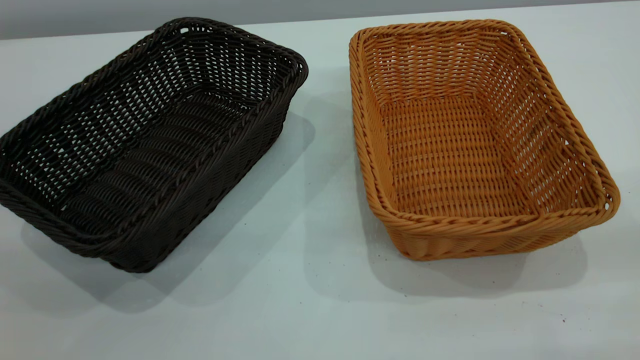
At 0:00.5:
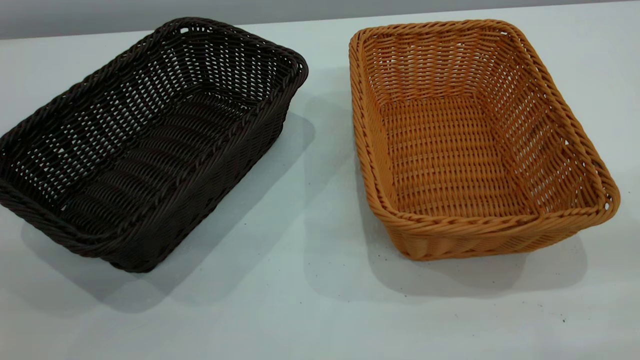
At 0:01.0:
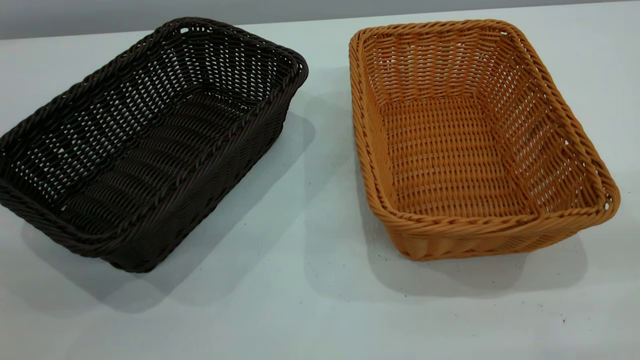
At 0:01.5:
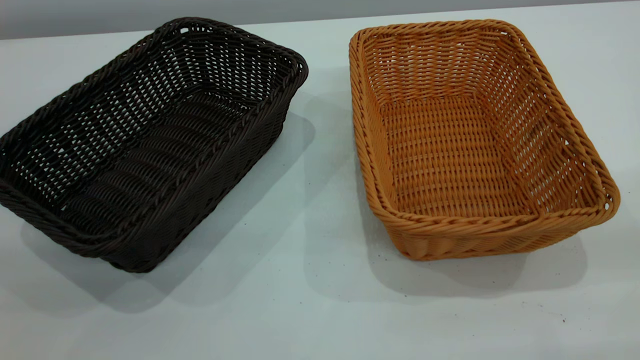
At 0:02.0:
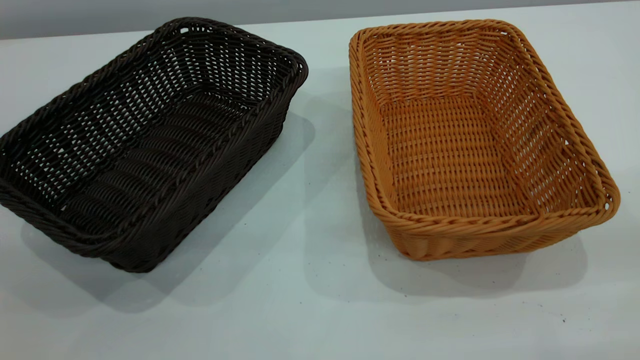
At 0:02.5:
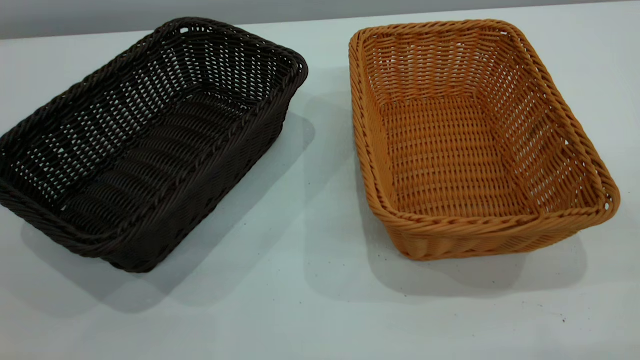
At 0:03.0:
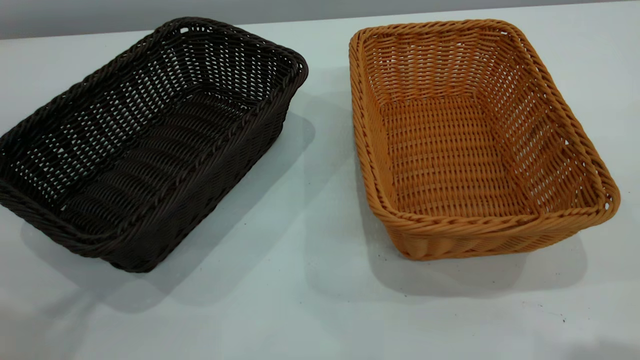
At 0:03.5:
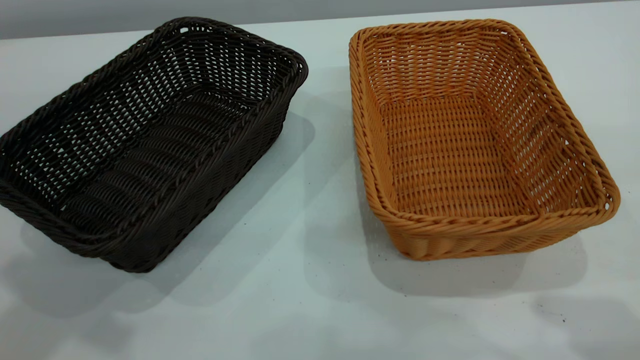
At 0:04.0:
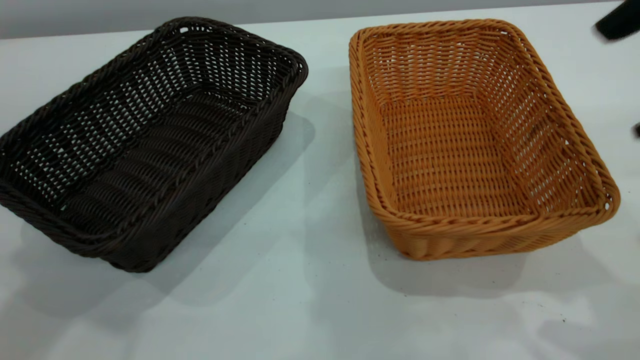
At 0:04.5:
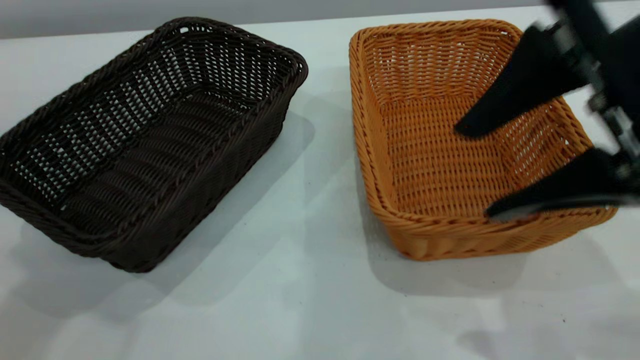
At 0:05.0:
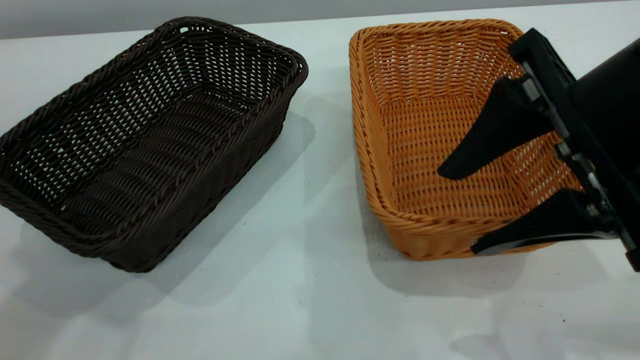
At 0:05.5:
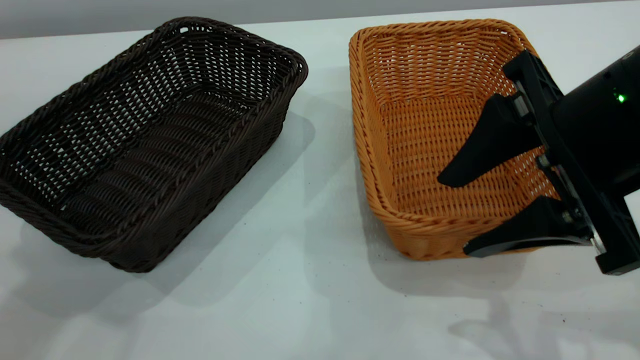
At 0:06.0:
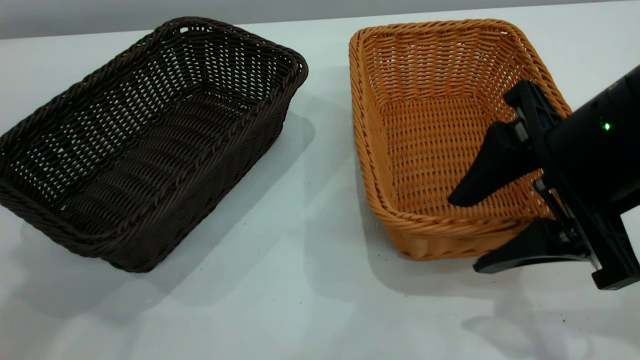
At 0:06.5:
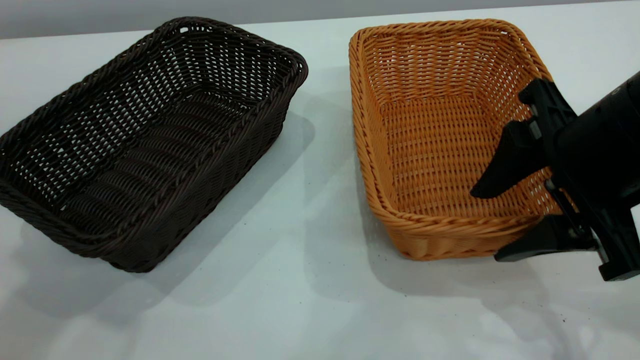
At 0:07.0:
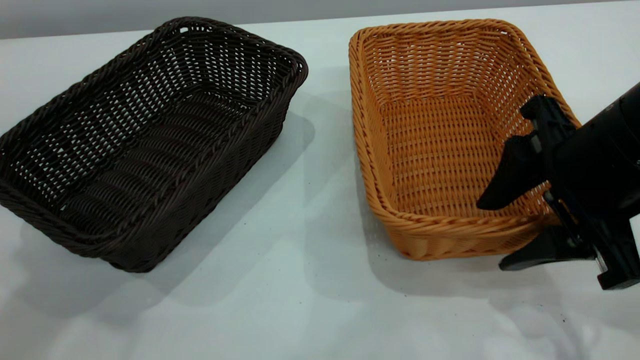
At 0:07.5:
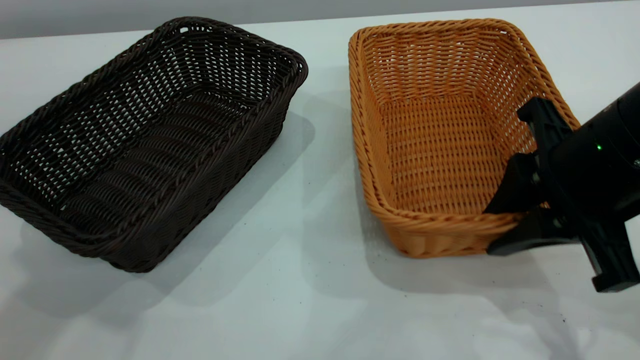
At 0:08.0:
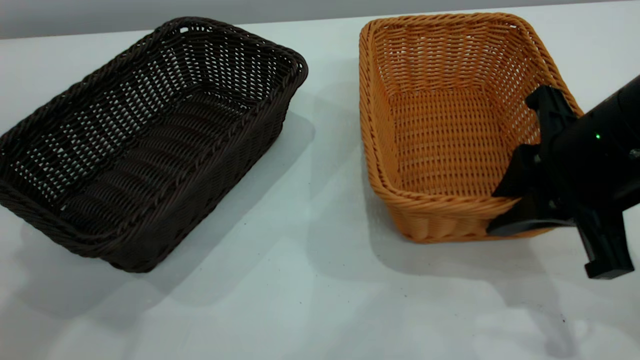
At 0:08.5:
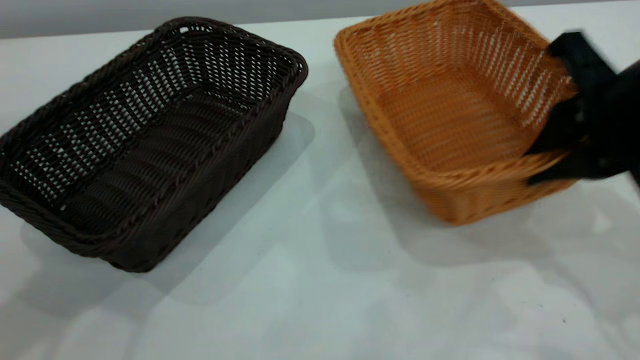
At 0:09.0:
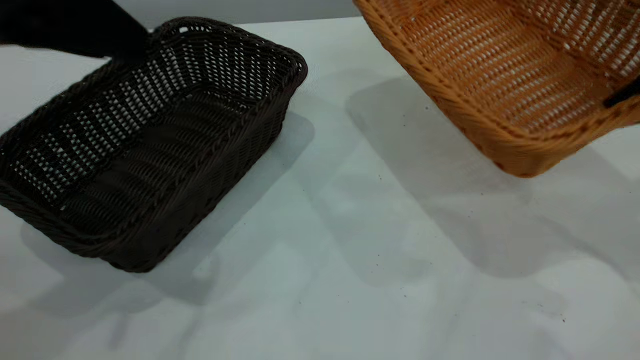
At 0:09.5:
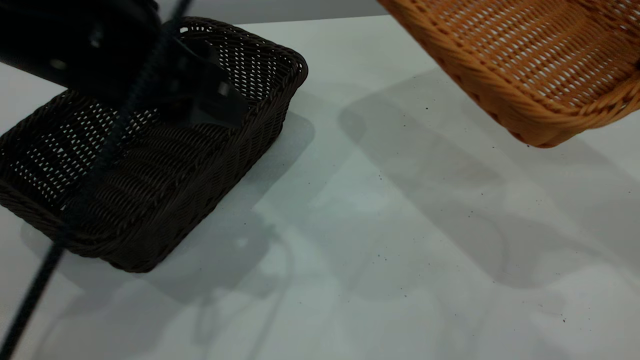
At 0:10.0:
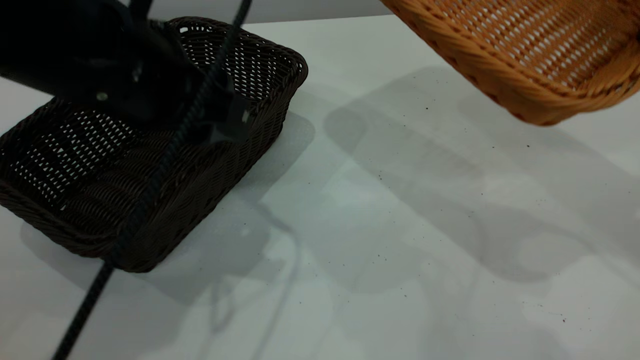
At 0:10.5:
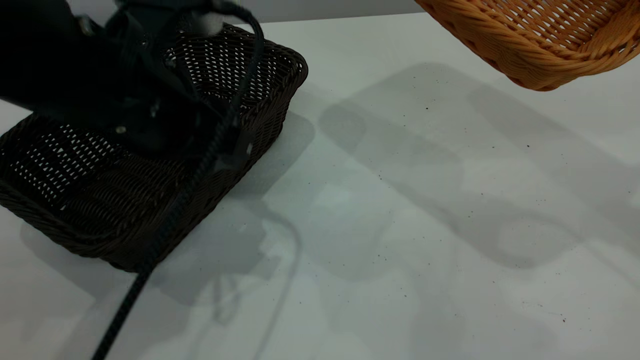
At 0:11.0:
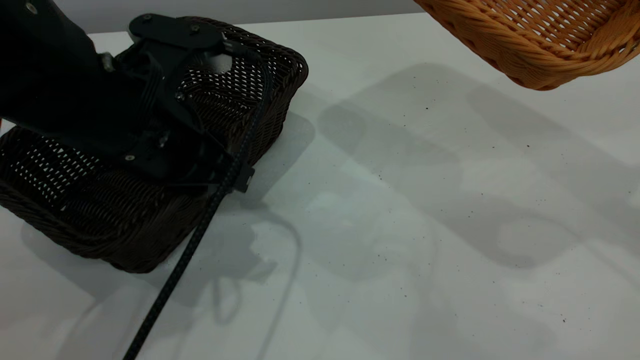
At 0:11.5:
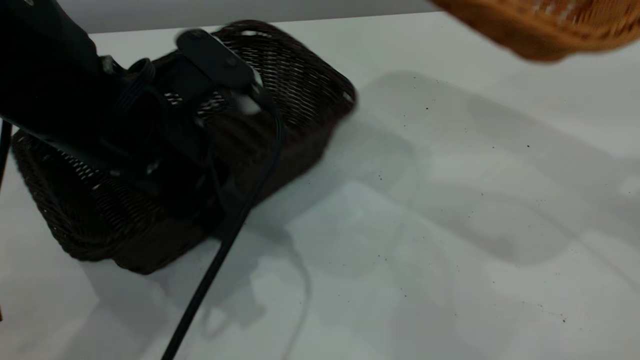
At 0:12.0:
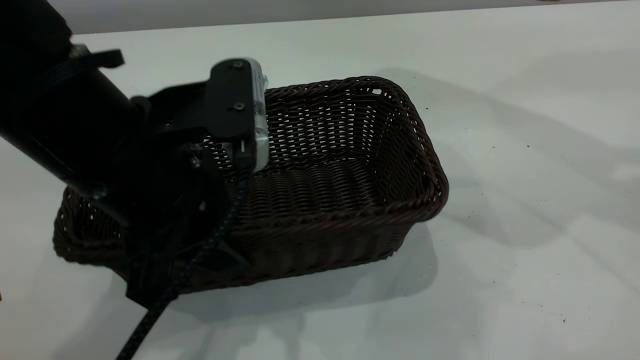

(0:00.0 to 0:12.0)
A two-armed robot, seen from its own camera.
Task of the whole recording: the left gripper grasp the black basket and place it in the center of the table, the right gripper grasp the brown basket and place it inside the black one.
Step, 0:00.0 - 0:08.5: Pick up the light basket with the right gripper.
0:00.0 - 0:02.0: Both grippers stay about where they are.
0:02.0 - 0:04.0: The right gripper shifts approximately 20 cm forward, and opens up.
0:04.0 - 0:06.0: The right gripper is displaced downward and to the left by some 15 cm.
0:06.0 - 0:08.0: The right gripper closes its fingers.
0:08.0 - 0:10.0: The right gripper moves upward and to the right, approximately 15 cm; the left gripper shifts approximately 20 cm downward and to the right.
0:10.0 - 0:12.0: The left gripper ends up some 5 cm from where it was, and closes up, while the right gripper goes about 5 cm upward.

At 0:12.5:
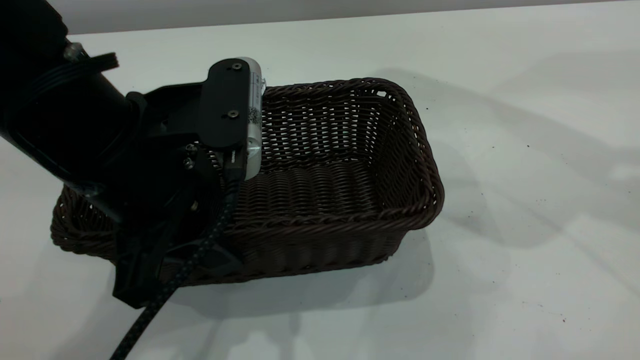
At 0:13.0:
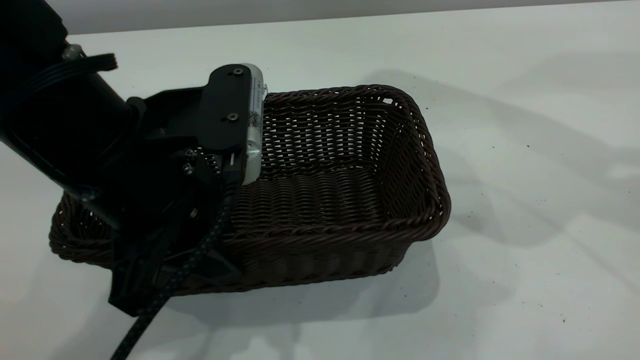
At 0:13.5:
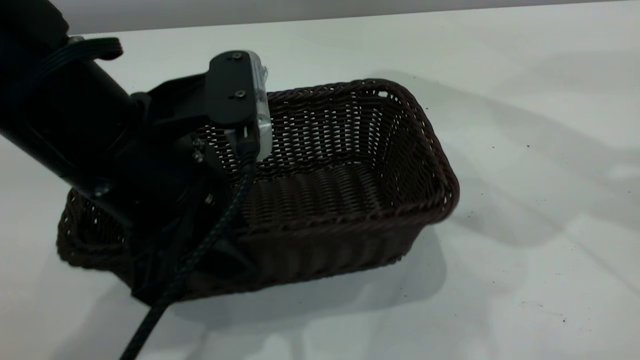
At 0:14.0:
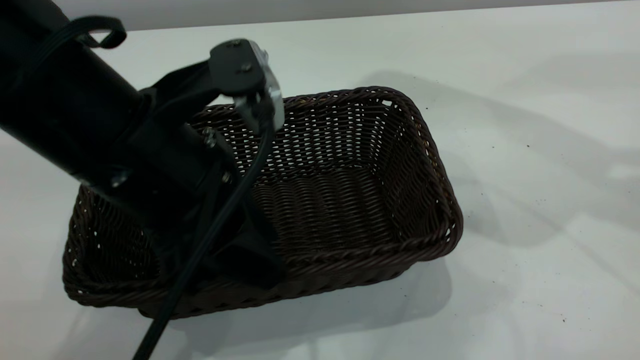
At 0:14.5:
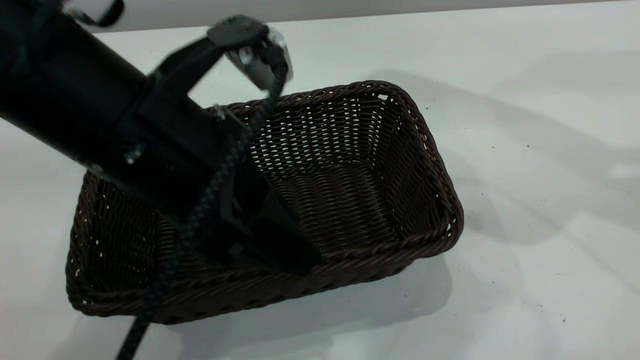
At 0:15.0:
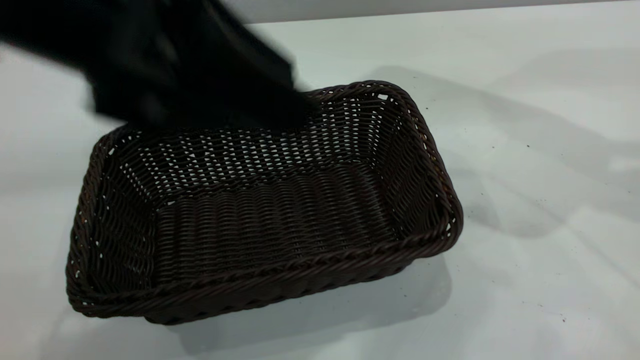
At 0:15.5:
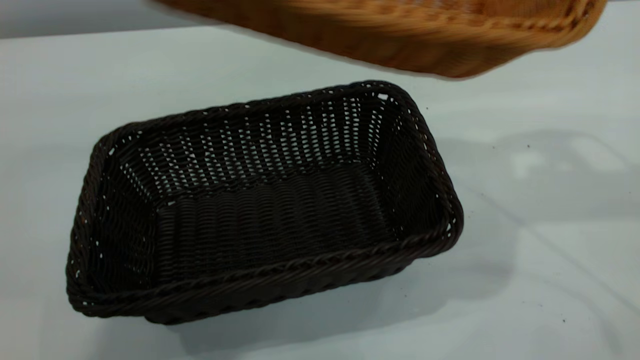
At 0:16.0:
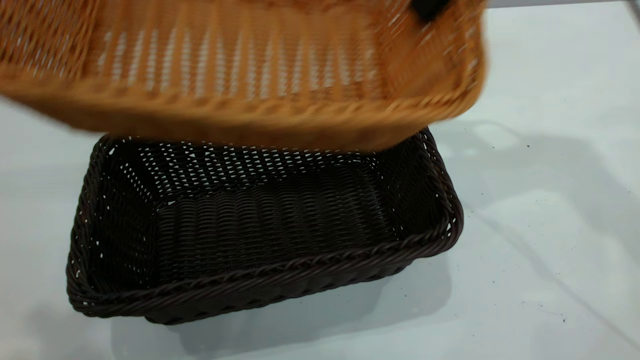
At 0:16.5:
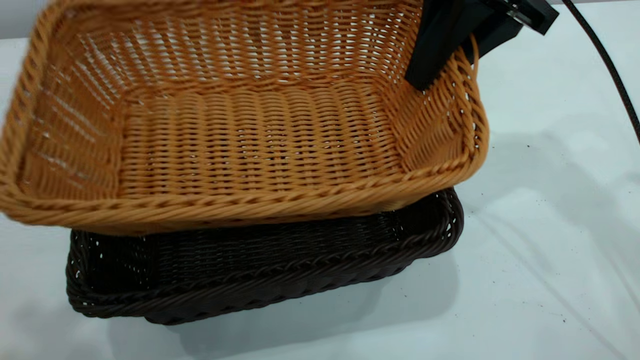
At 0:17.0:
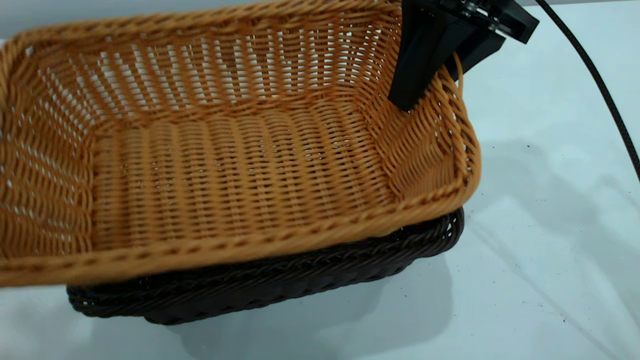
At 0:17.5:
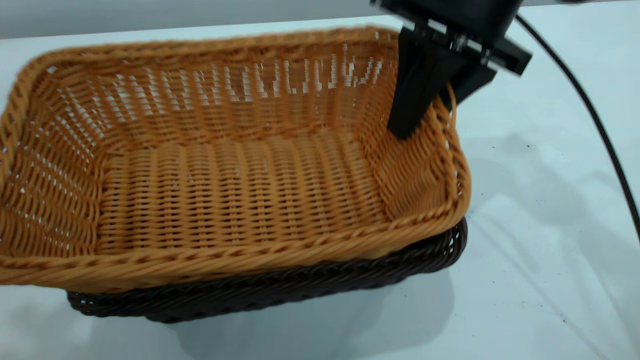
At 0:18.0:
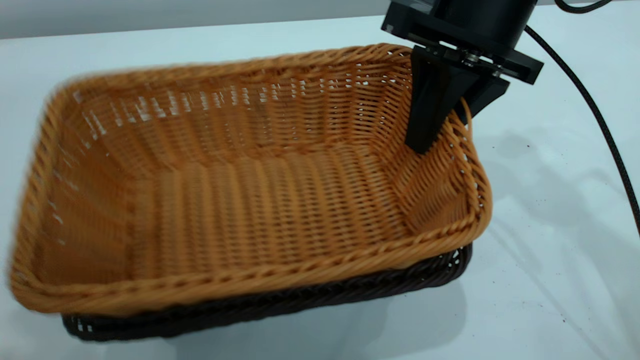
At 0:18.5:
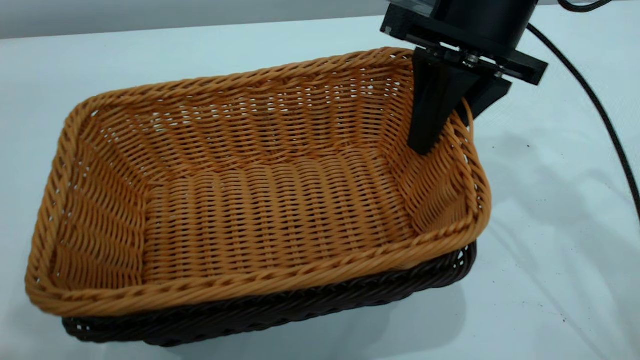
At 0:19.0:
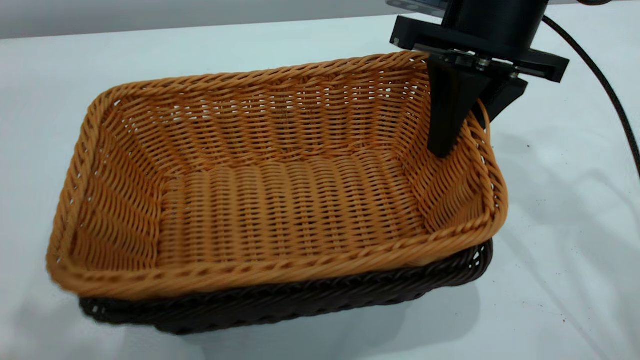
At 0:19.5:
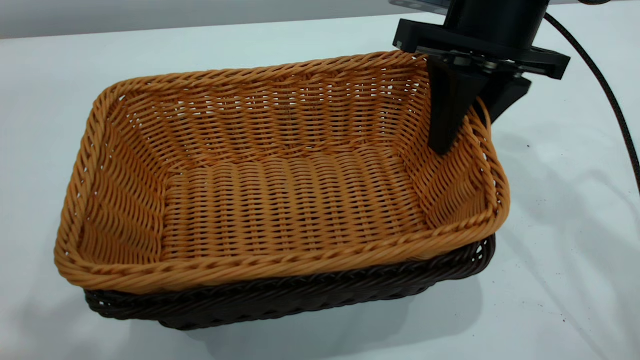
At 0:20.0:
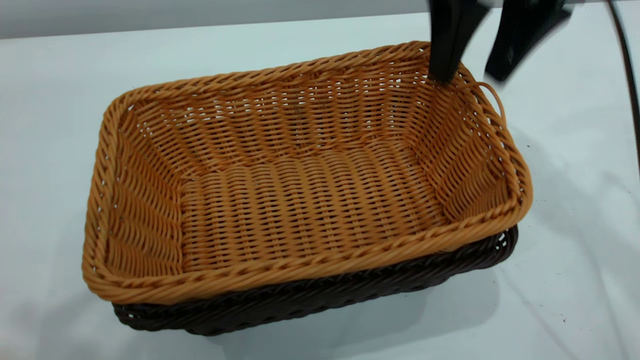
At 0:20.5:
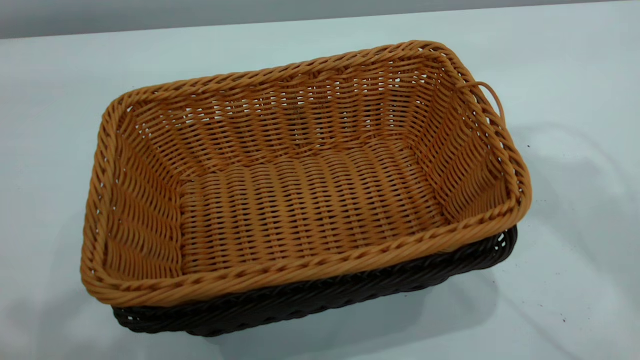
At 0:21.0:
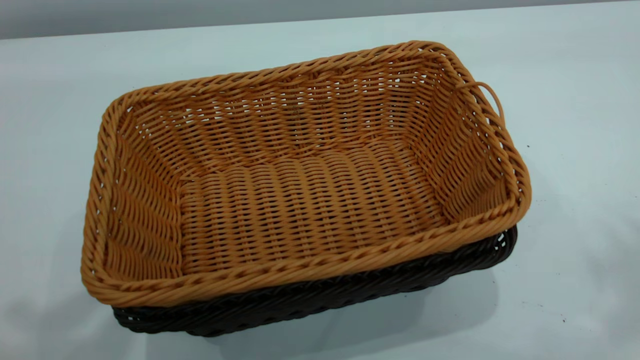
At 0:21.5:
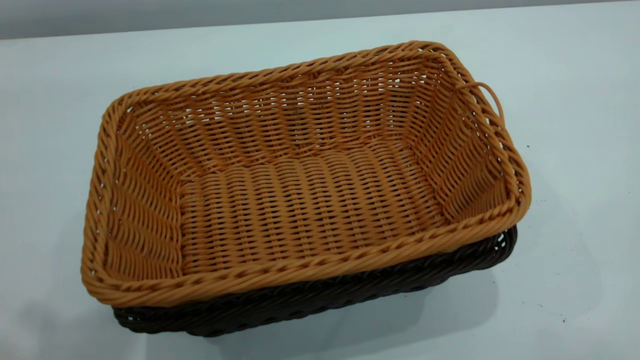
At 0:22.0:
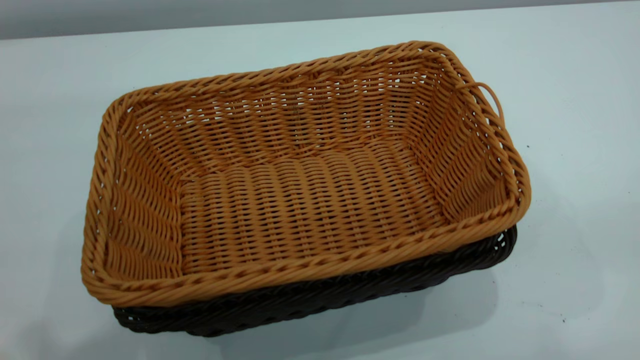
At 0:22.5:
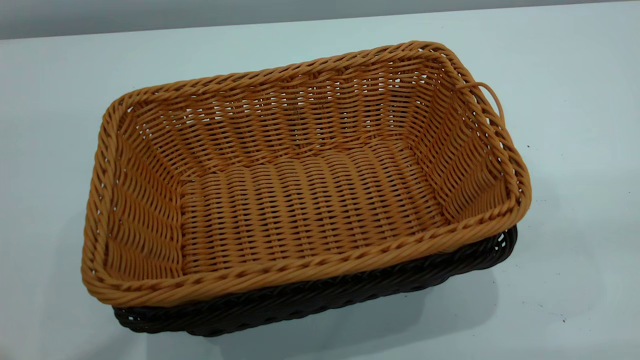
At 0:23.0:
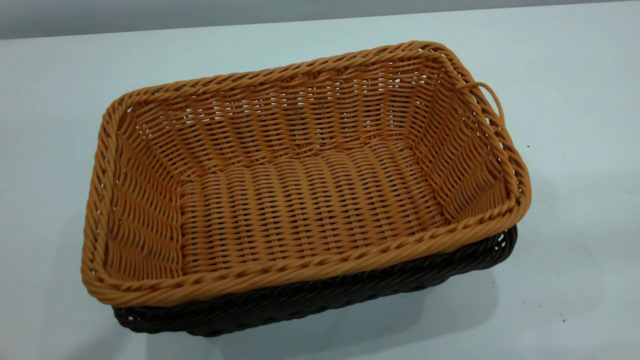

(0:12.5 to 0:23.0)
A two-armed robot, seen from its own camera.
Task of the whole recording: the left gripper grasp the black basket and place it in the center of the table, the right gripper grasp the brown basket and place it inside the black one.
Step, 0:12.5 - 0:14.5: Move the dark basket to the center of view.
Step, 0:15.0 - 0:19.5: Place the light basket on the dark basket.
0:12.5 - 0:14.5: The left gripper opens up.
0:14.5 - 0:16.5: The right gripper heads to the left, downward and forward, covering about 20 cm, while the left gripper moves upward and to the left, about 25 cm.
0:19.0 - 0:21.0: The left gripper closes its fingers. The right gripper shifts about 40 cm upward and backward, and opens, then closes once more.
